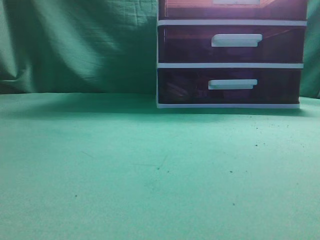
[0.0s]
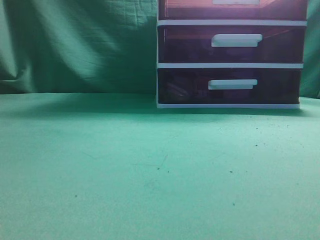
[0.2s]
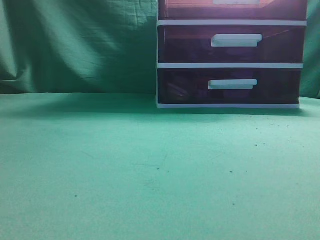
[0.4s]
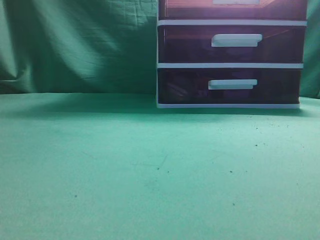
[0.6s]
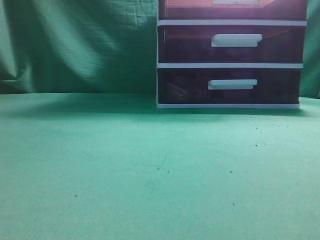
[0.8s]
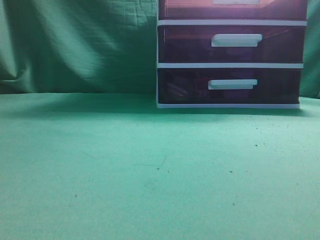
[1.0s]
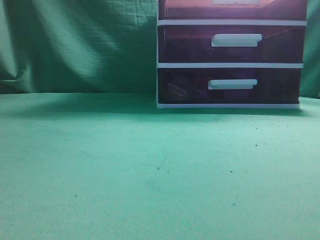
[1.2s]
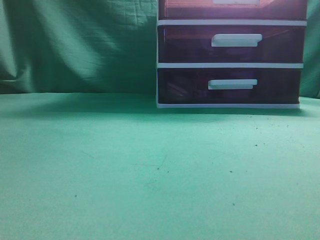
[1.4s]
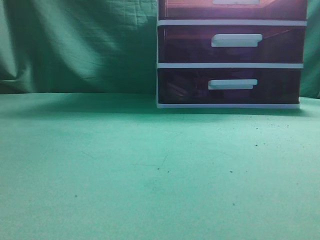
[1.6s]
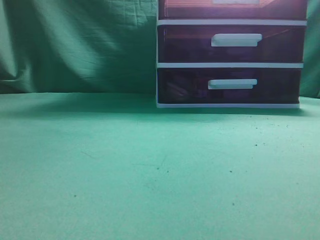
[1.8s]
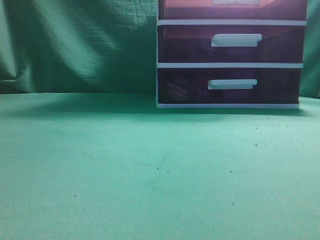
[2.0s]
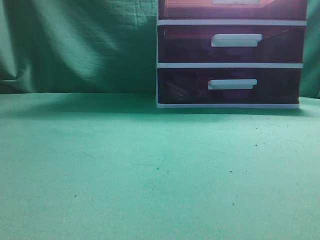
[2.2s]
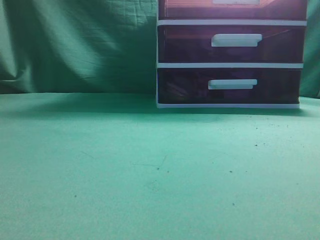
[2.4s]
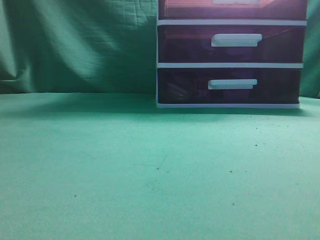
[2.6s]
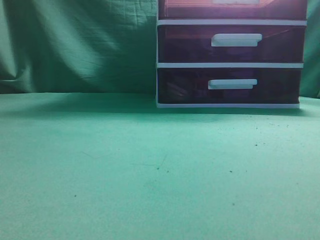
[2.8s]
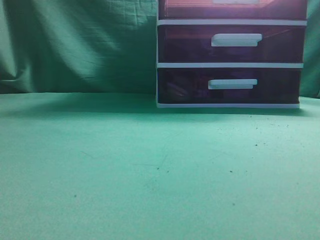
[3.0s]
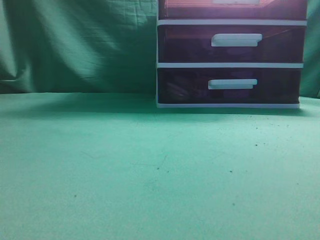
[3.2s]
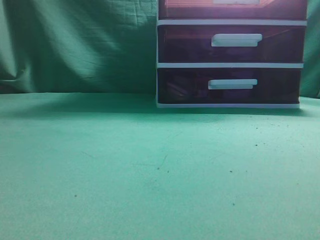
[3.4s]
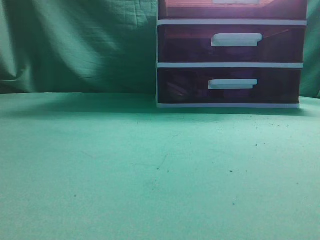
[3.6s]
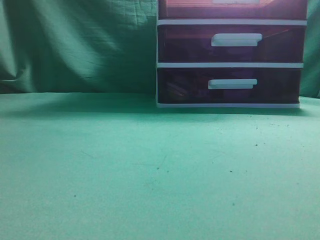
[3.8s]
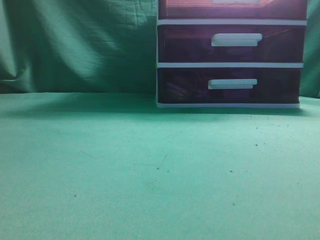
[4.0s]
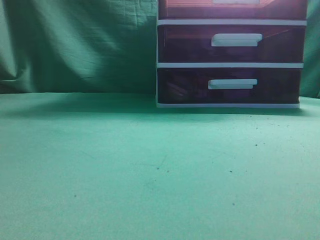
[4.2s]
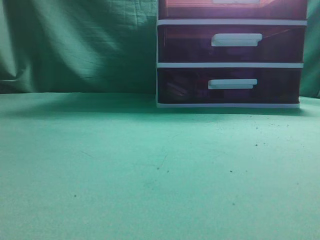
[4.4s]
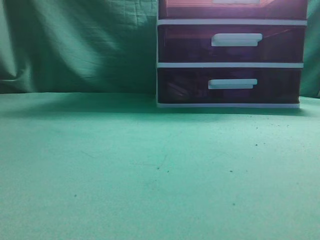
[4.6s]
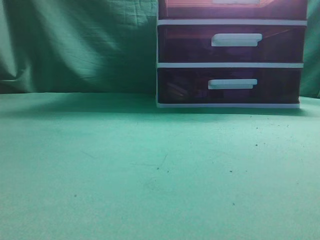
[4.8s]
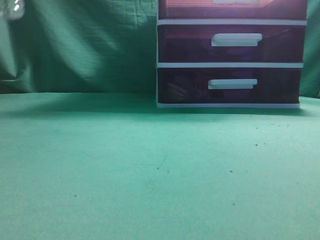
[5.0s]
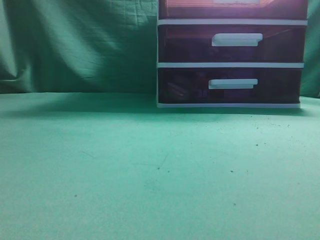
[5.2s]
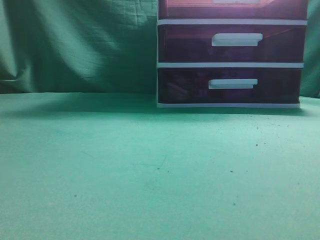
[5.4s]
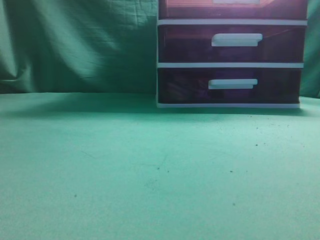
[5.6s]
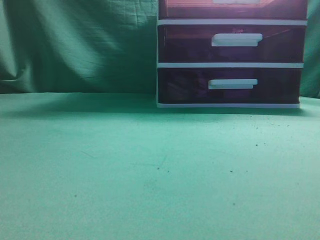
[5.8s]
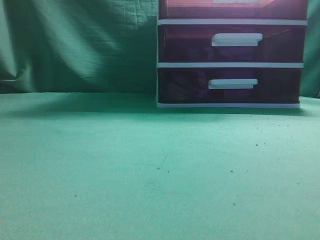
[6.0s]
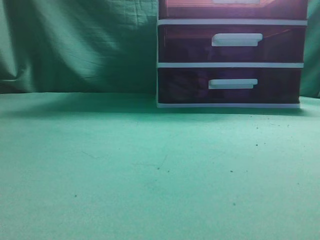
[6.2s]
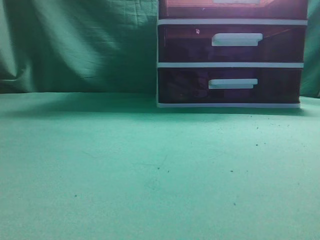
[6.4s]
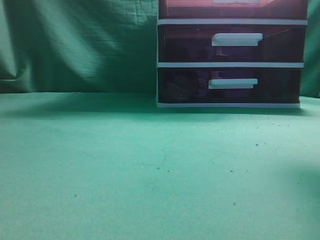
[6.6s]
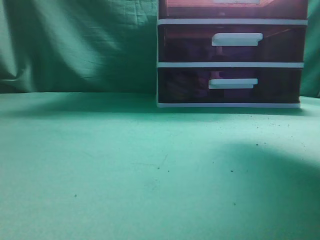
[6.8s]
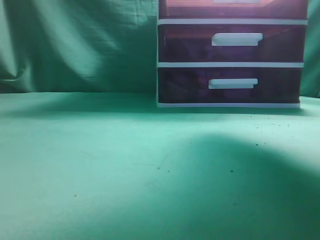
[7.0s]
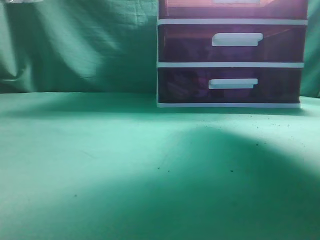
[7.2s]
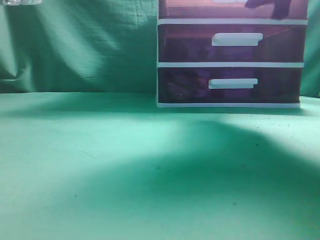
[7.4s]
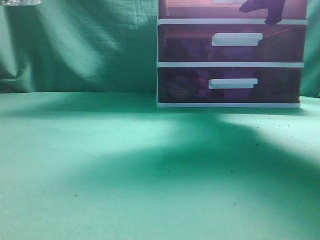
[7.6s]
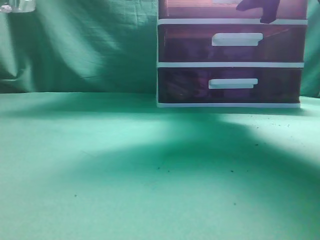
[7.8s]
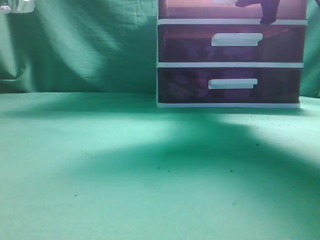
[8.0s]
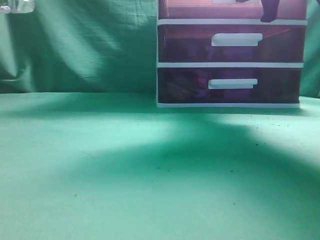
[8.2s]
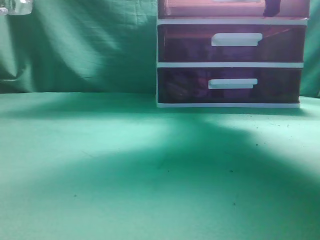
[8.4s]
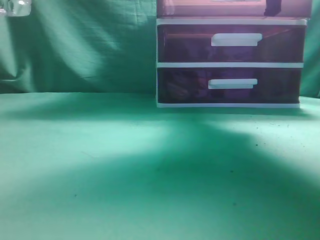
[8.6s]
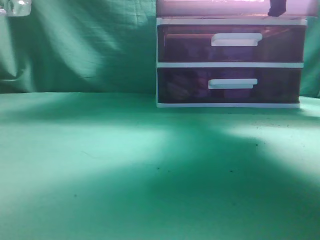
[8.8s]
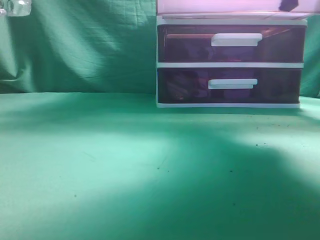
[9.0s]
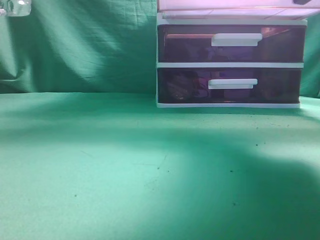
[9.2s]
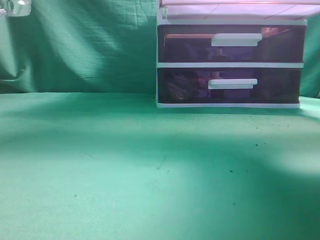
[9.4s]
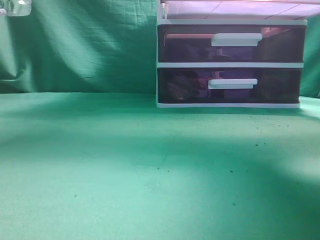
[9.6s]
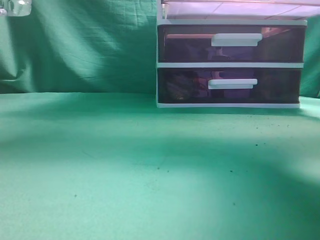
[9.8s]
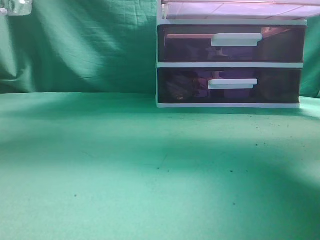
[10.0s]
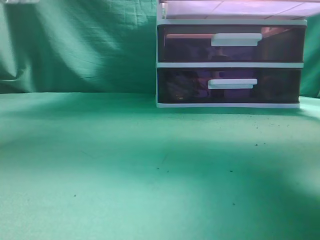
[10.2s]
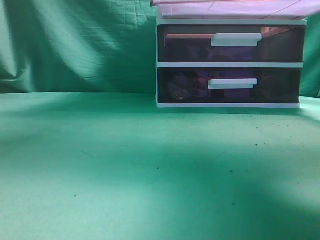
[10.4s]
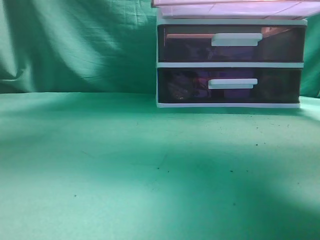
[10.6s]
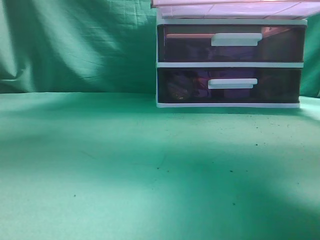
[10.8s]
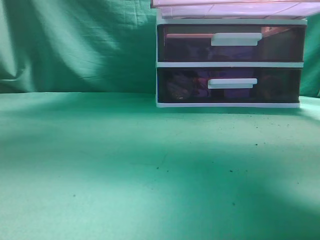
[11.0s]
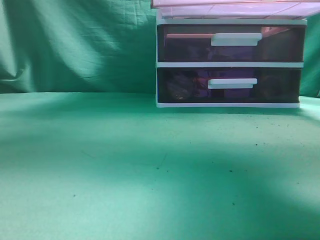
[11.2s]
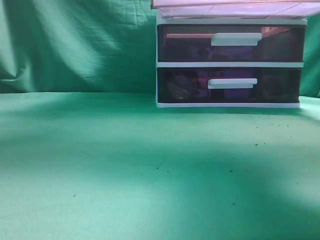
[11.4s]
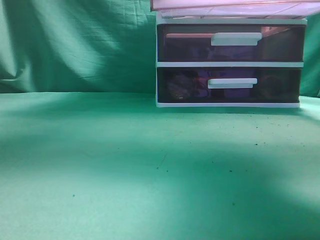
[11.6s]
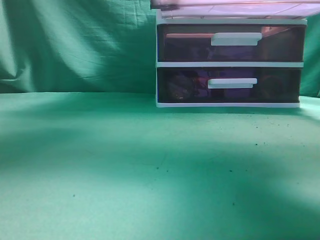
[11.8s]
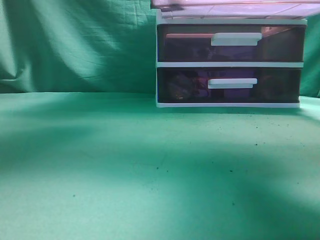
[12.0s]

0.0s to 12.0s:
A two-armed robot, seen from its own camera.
Task of the whole recording: place the water bottle into the drawer.
Step, 0.0s to 9.8s: Open the drawer.
6.0s to 7.6s: The right gripper heads forward, covering about 25 cm, and opens its fingers.
7.6s to 9.0s: The right gripper travels backward by some 5 cm, and closes its fingers.
9.0s to 10.4s: The right gripper moves backward, roughly 10 cm.
10.4s to 12.0s: The left gripper goes approximately 25 cm to the right and forward.

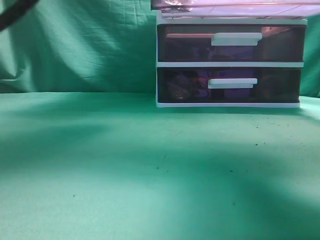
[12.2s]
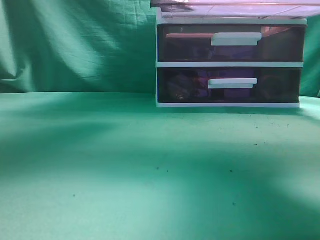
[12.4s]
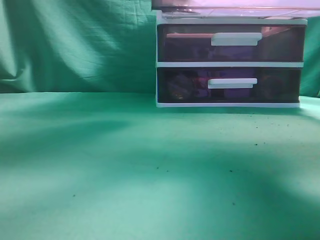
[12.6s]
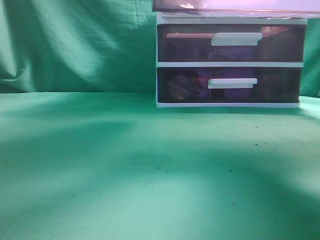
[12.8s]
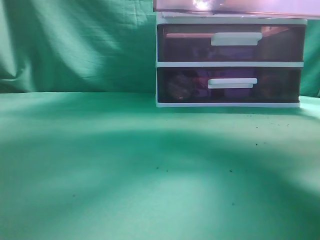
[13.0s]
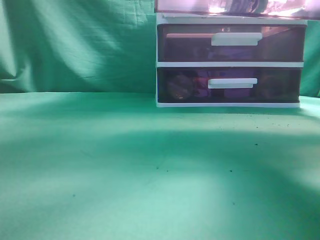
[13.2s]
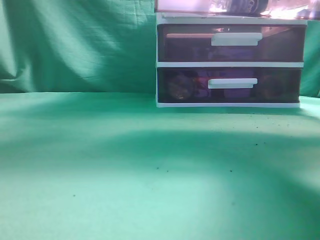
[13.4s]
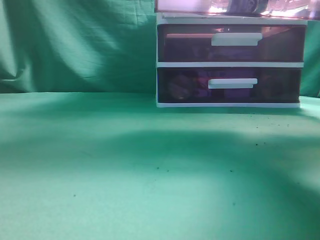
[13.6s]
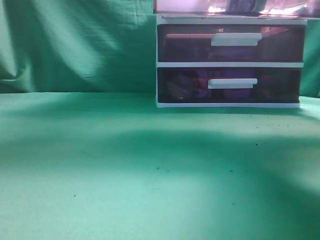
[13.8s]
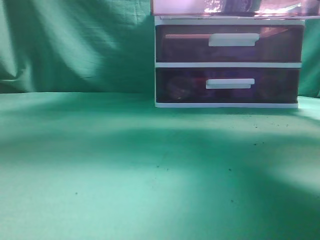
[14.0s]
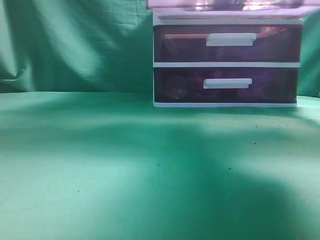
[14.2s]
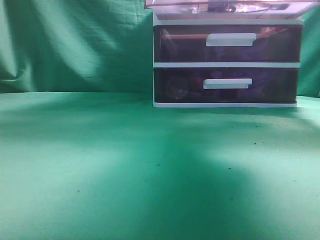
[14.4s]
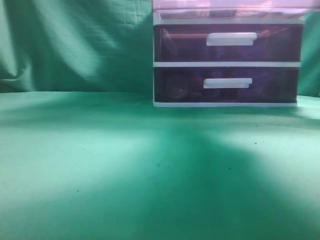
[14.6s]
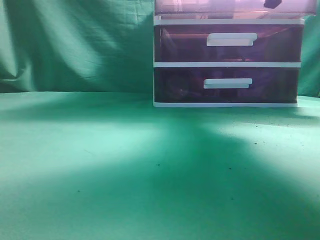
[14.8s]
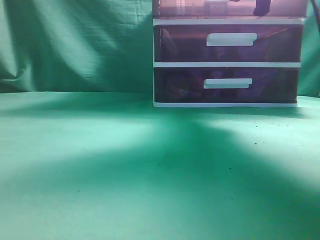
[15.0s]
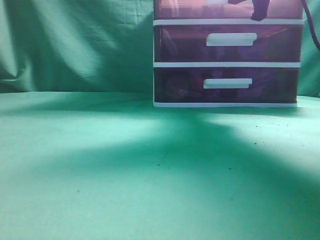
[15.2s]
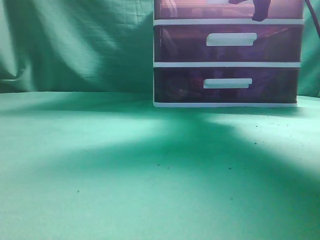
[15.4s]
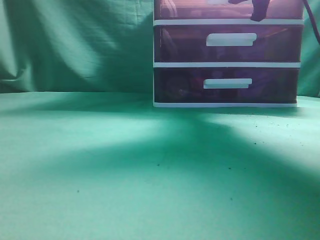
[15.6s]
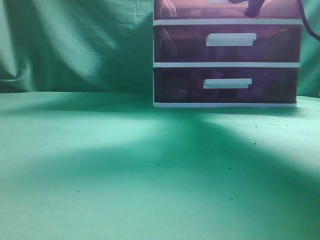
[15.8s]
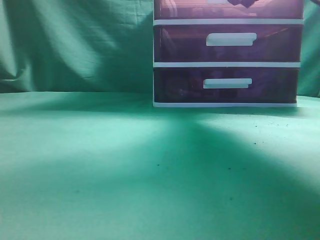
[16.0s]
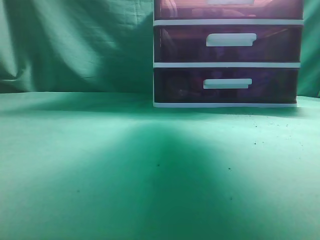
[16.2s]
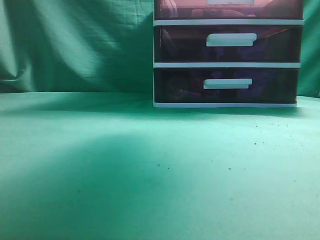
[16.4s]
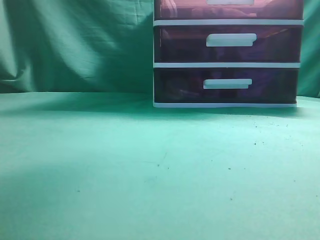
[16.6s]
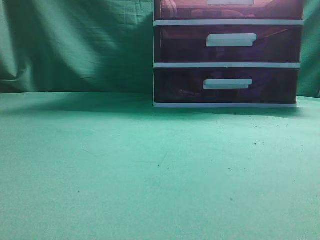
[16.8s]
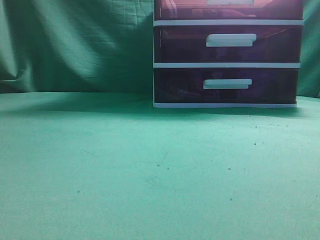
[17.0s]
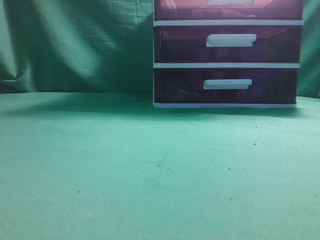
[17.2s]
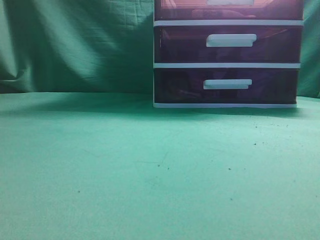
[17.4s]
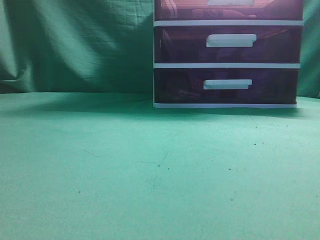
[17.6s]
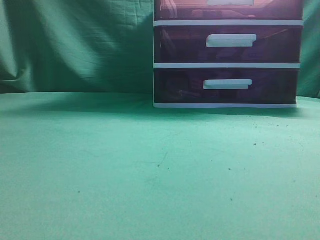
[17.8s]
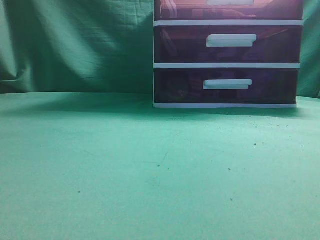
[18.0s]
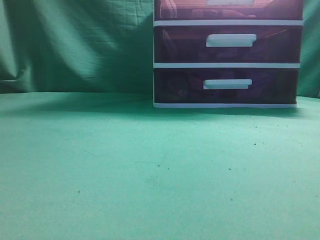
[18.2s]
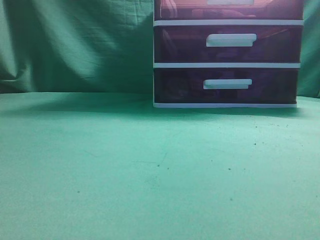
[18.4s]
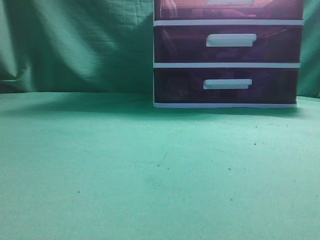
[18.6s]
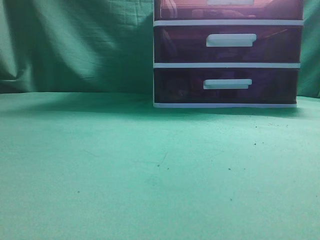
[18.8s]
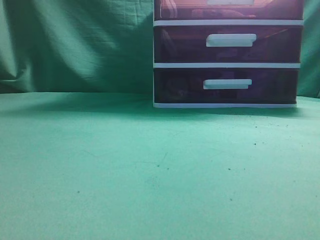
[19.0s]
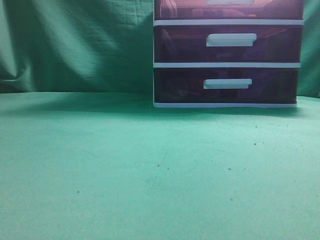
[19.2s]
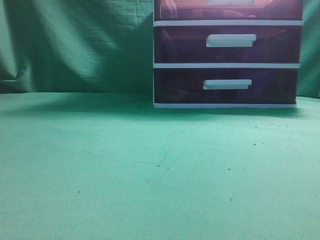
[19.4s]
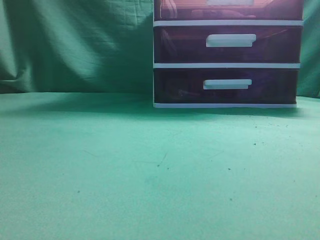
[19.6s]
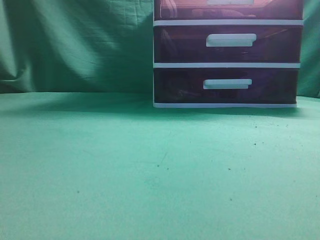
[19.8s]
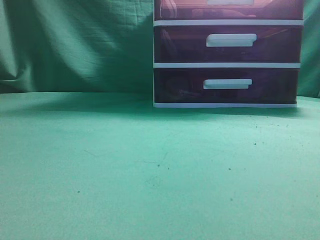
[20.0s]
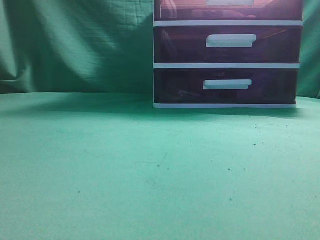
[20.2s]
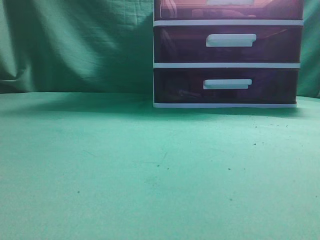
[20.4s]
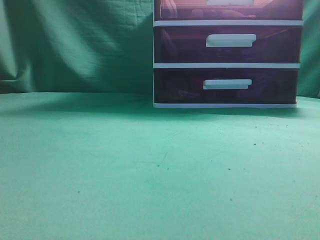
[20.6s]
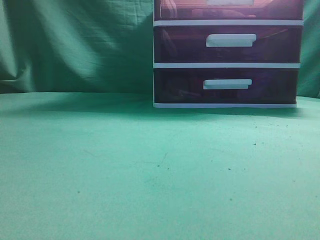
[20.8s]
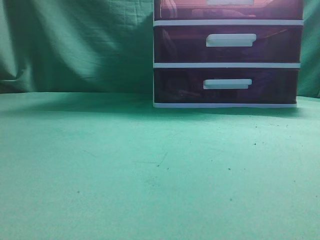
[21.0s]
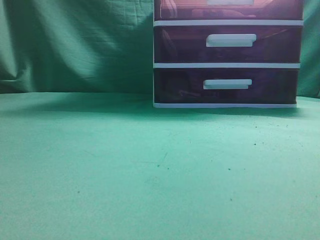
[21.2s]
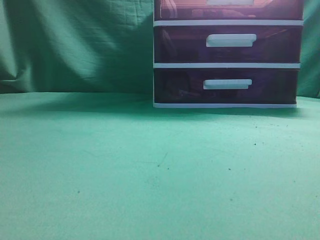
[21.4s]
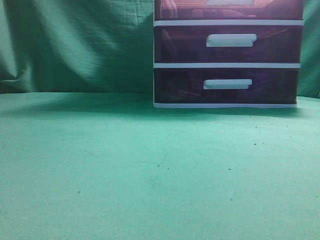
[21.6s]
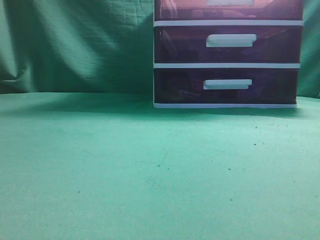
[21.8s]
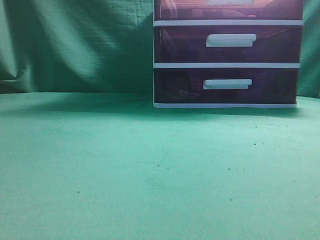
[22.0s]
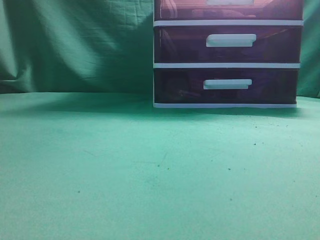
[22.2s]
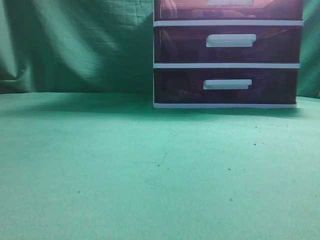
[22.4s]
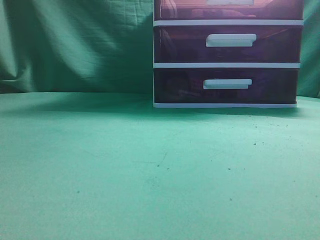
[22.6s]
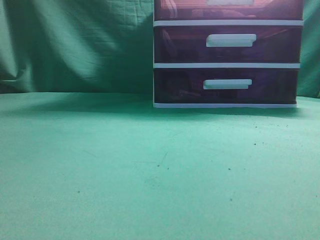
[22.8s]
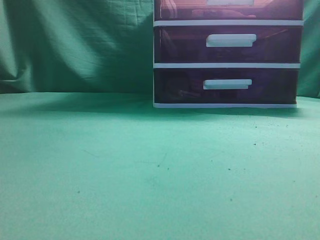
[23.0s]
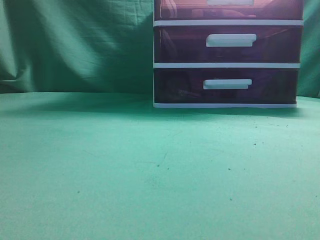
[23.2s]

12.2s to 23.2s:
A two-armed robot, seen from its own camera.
Task of the whole recording: place the water bottle into the drawer.
Step, 13.6s to 16.4s: Close the drawer.
12.2s to 13.8s: The left gripper goes approximately 10 cm upward, and closes.
13.8s to 15.4s: The right gripper travels forward by about 15 cm. Meanwhile the left gripper goes about 25 cm backward and to the left.
15.4s to 17.0s: The right gripper moves backward and upward, some 25 cm, and opens, then closes again, while the left gripper goes roughly 10 cm backward and to the left.
